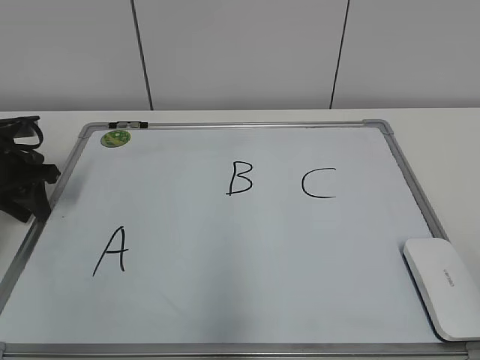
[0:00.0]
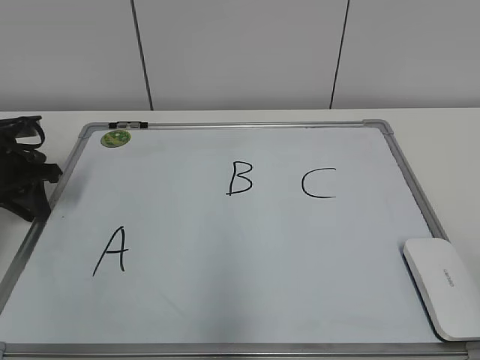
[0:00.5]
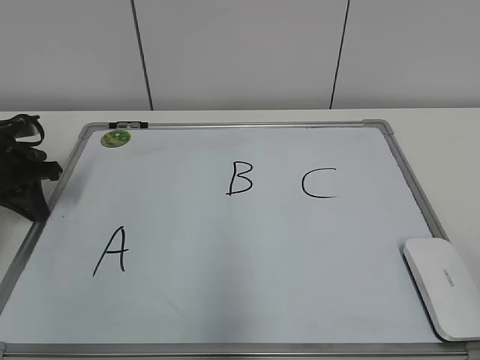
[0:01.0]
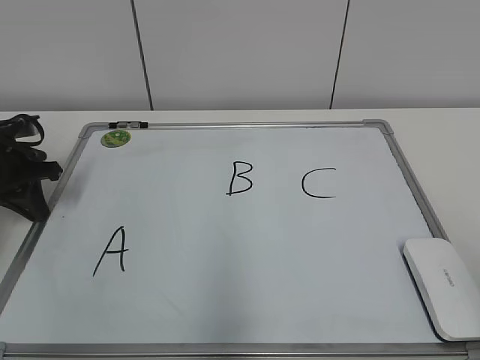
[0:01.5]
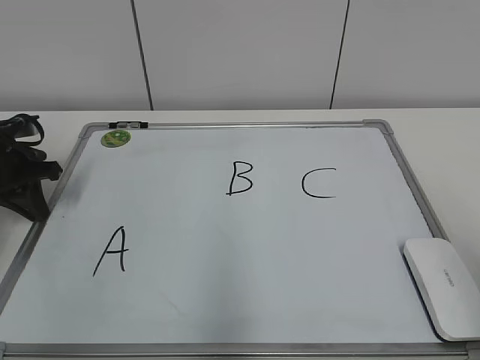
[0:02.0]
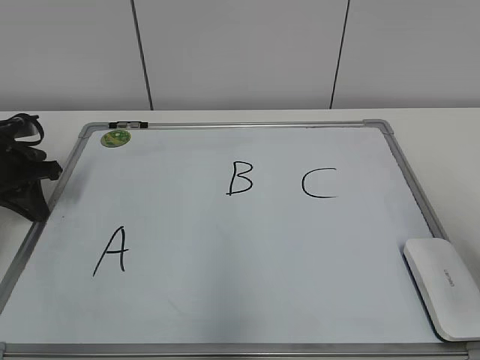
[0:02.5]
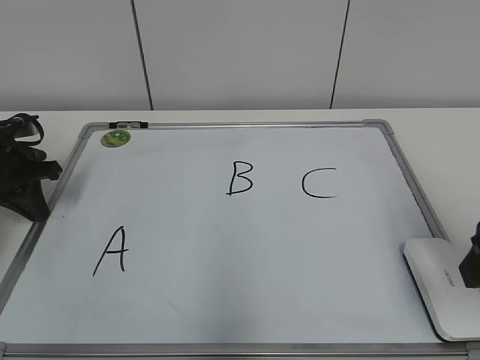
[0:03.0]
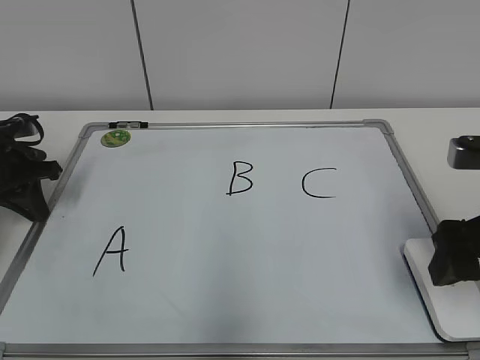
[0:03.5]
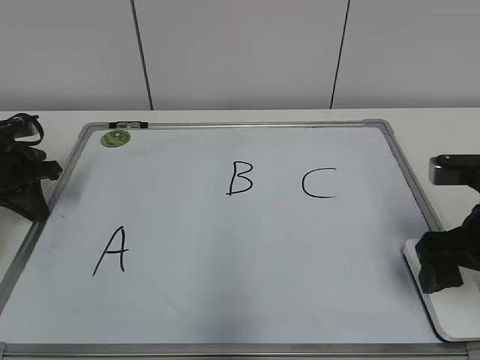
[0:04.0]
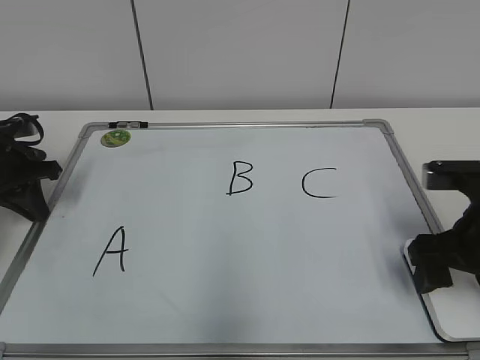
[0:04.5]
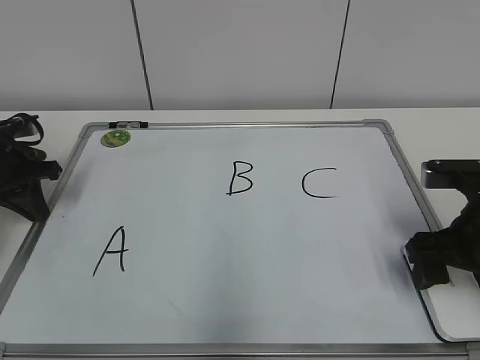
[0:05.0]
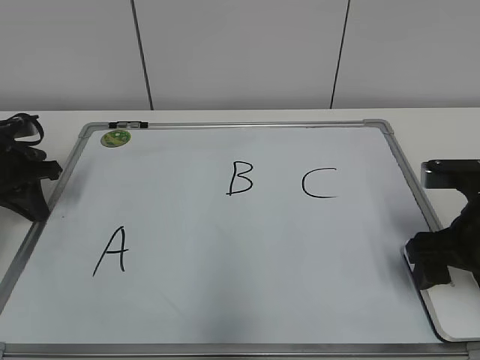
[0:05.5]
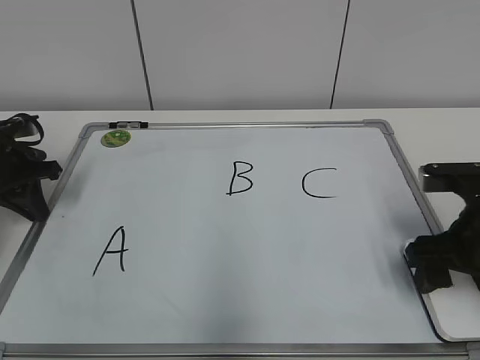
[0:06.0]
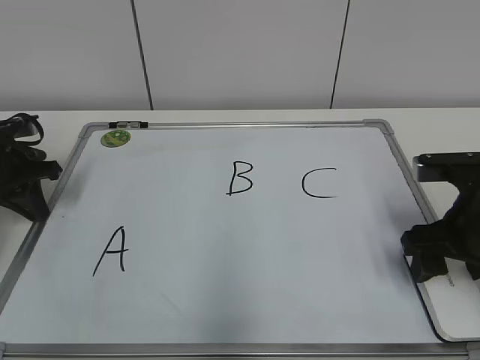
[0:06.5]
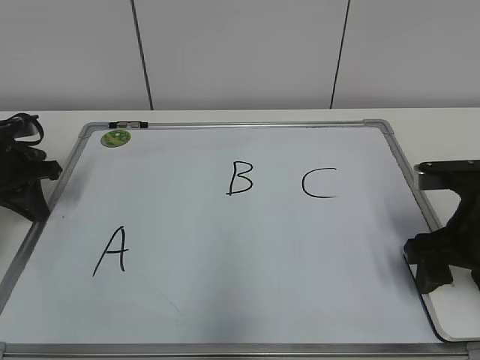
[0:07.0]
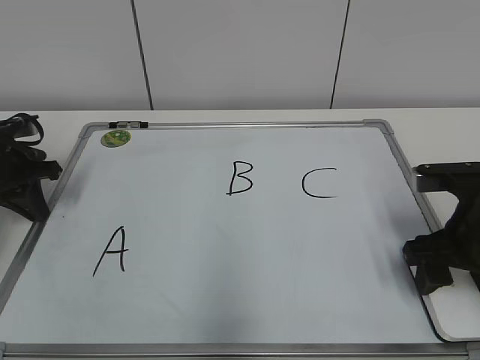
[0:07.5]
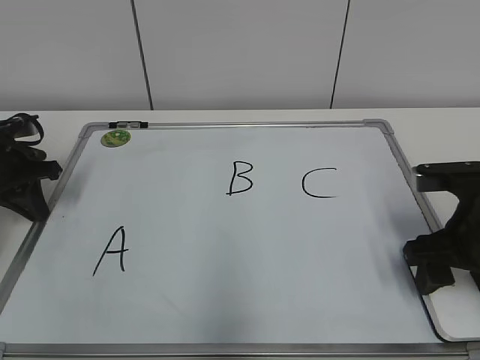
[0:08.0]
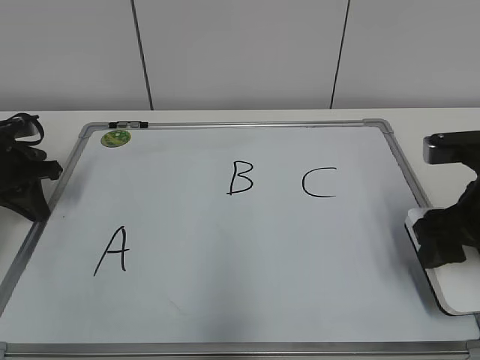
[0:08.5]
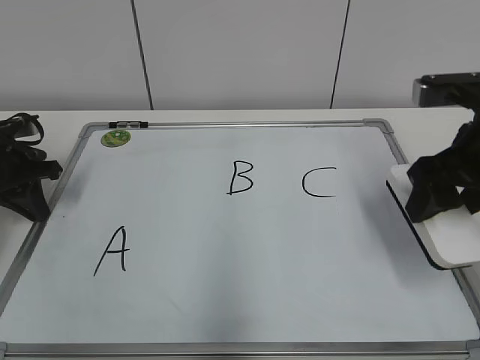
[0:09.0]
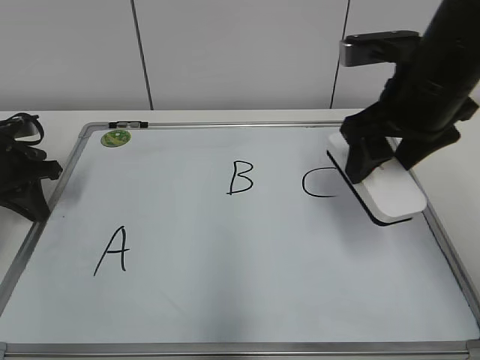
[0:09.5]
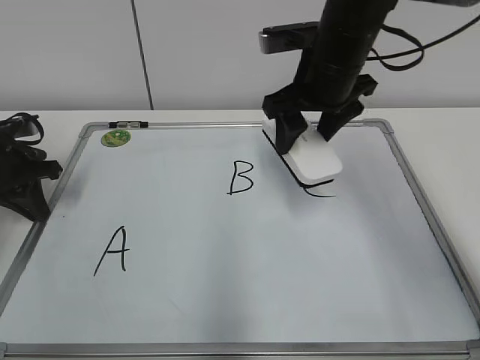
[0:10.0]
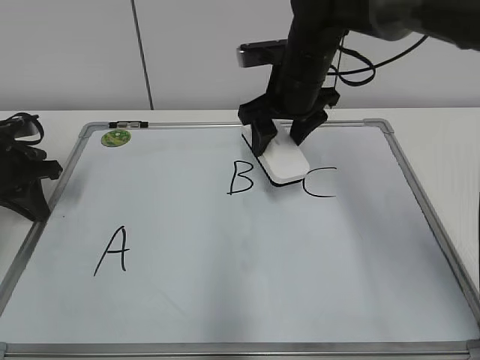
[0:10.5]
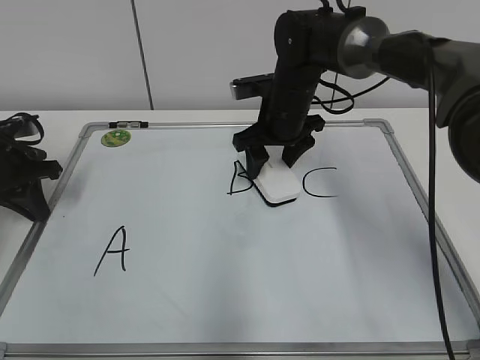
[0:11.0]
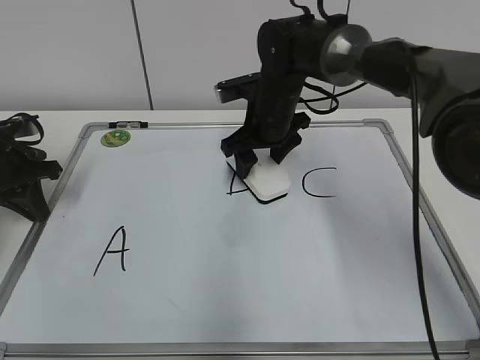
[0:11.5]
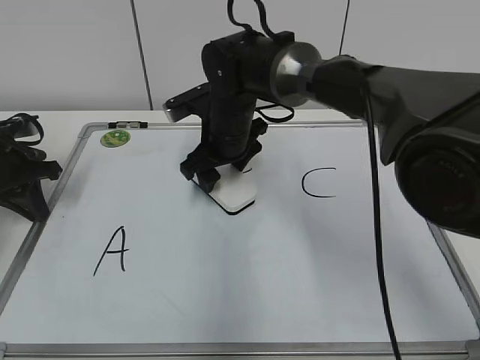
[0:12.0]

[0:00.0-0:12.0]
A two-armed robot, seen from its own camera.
Task of the whole recording: pick up the eraser on the blackboard and erase the letter "B".
Step, 0:01.5 to 0:07.5: Grab the eraser with your right hand.
0:02.0 to 0:04.0: The right gripper travels forward and downward by roughly 20 cm, and opens up.
0:04.0 to 0:06.0: The right gripper closes.
0:06.0 to 0:08.0: The right gripper closes.
0:08.0 to 0:10.0: The right gripper shifts about 20 cm to the left, forward and upward.
0:10.0 to 0:12.0: The right gripper travels to the left and downward by some 15 cm.

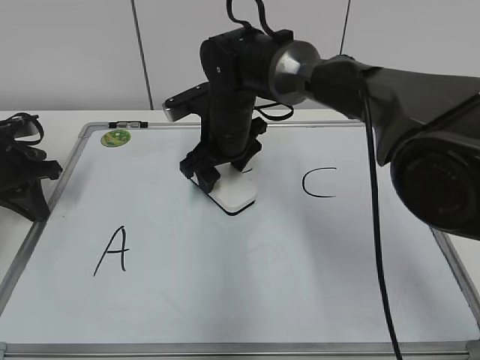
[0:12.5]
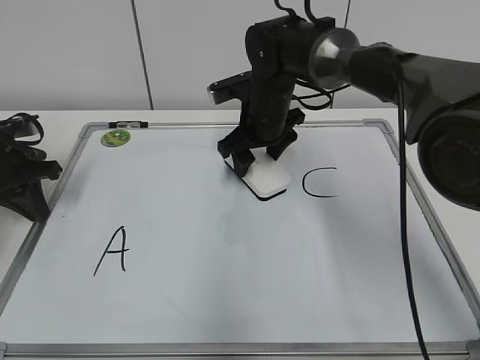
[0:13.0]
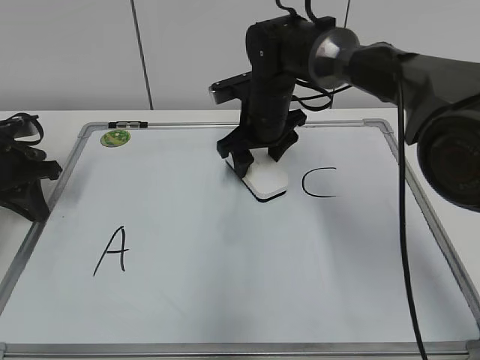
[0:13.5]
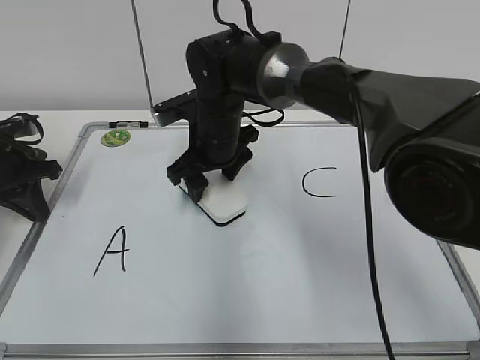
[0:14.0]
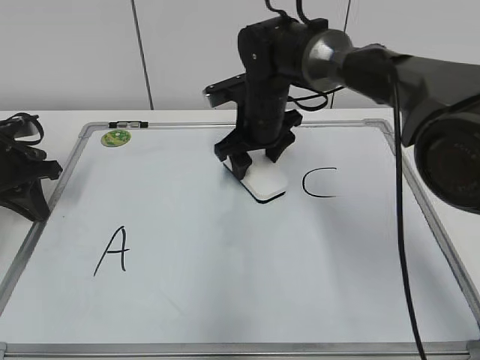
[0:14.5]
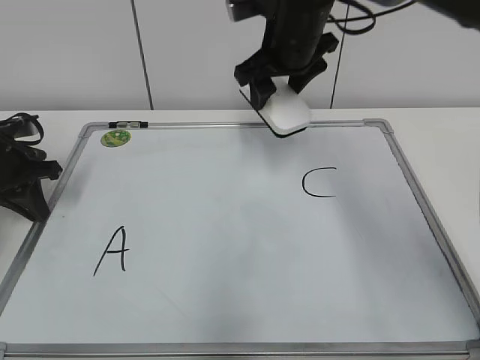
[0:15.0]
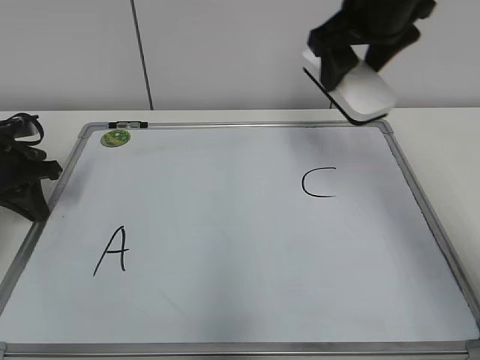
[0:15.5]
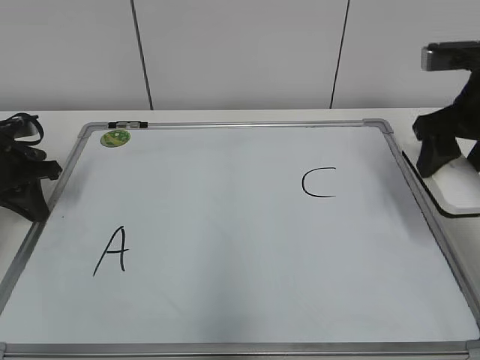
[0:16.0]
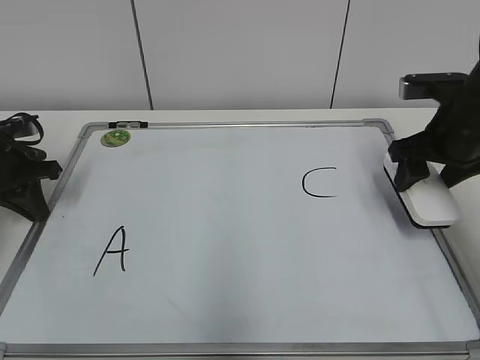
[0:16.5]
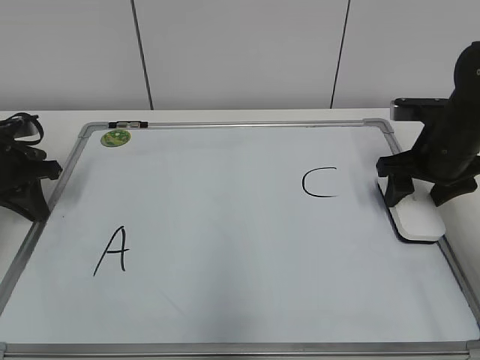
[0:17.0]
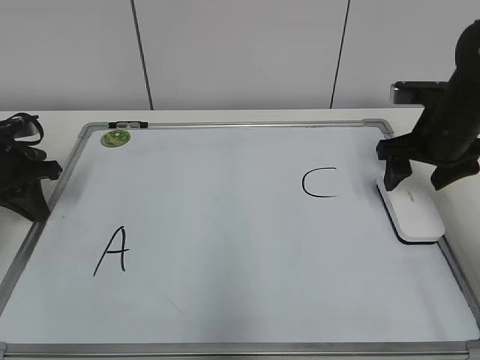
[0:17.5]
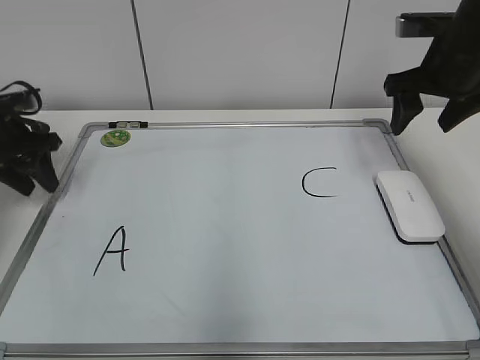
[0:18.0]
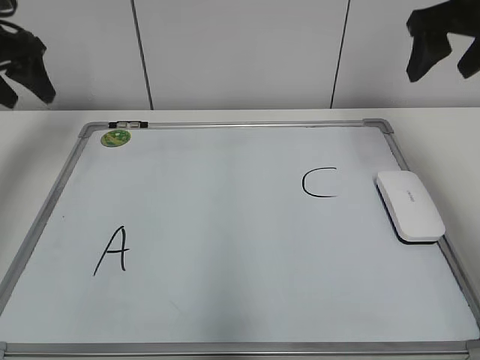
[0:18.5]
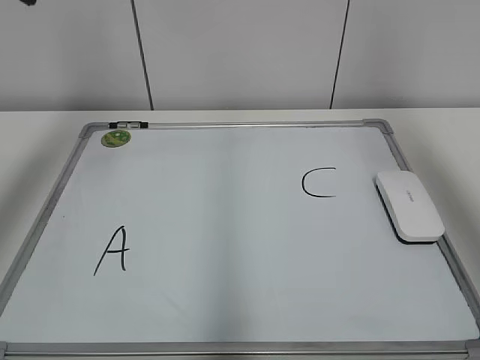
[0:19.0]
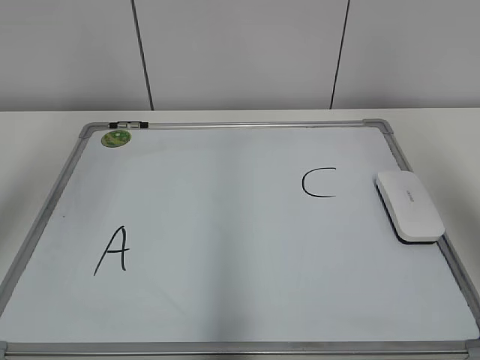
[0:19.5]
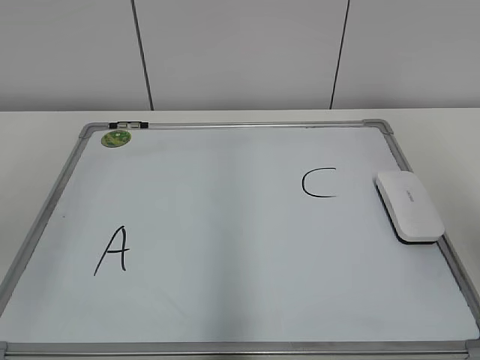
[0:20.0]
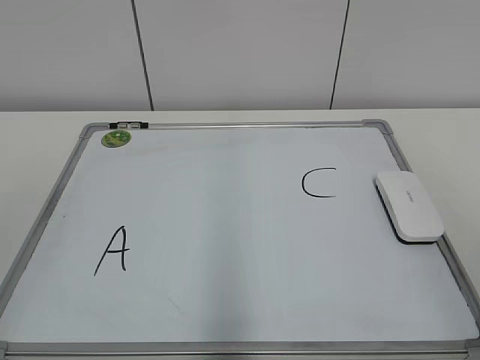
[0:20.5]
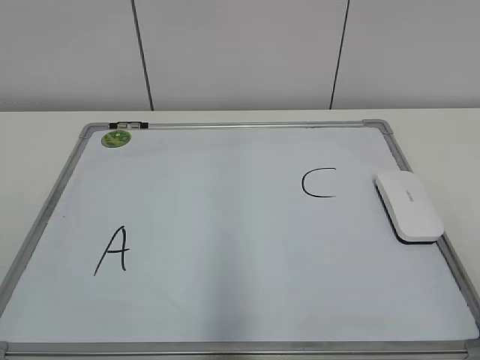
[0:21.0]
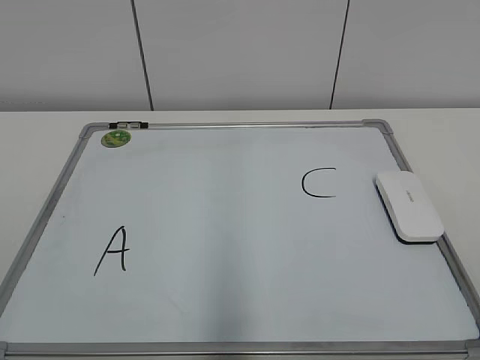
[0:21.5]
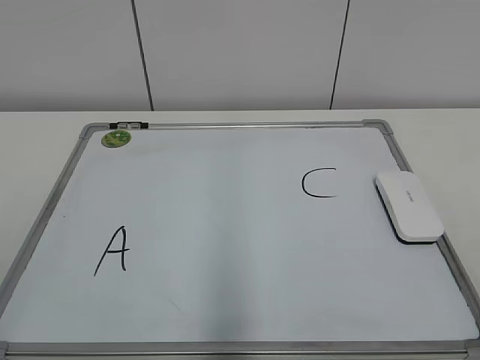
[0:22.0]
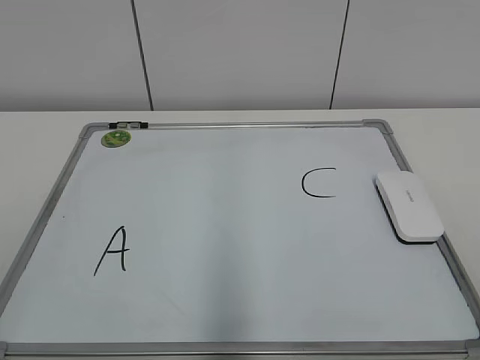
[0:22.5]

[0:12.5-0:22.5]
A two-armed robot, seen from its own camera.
Task of the whole recording: pick up the eraser on the blackboard and erase the letter "B".
Step, 0:15.0 to 0:17.0: Put down the eraser with your right hand.
0:12.5 to 0:14.5: The right gripper goes left and right, about 5 cm each way, reversing 2 times.
0:14.5 to 0:16.5: The right gripper travels to the right and backward by approximately 25 cm.
0:16.5 to 0:18.5: The two grippers go some 15 cm upward. The right gripper opens up; the left gripper opens up.
0:18.5 to 0:20.5: Both grippers move backward, about 35 cm.

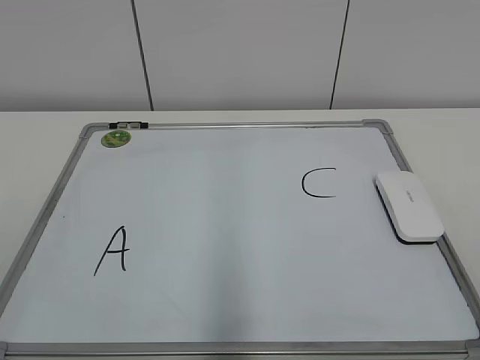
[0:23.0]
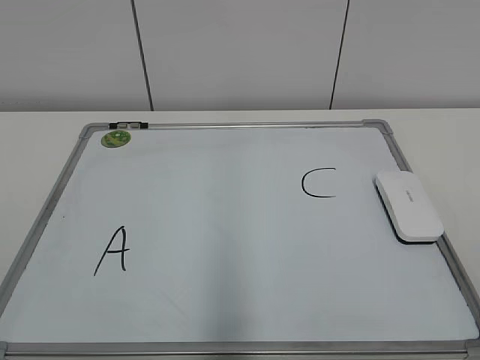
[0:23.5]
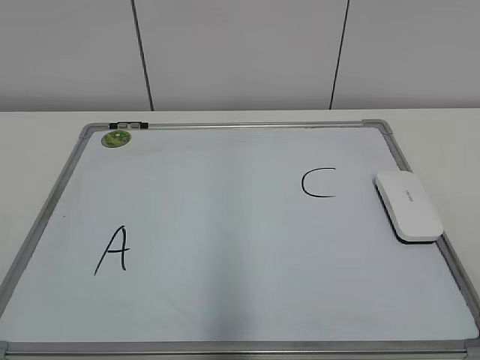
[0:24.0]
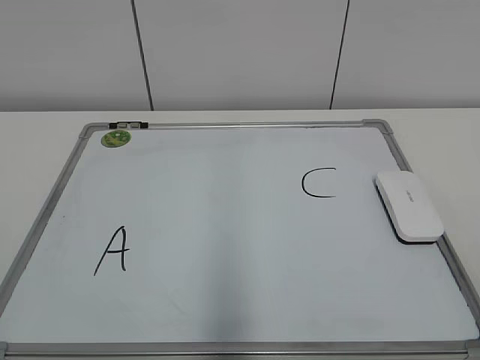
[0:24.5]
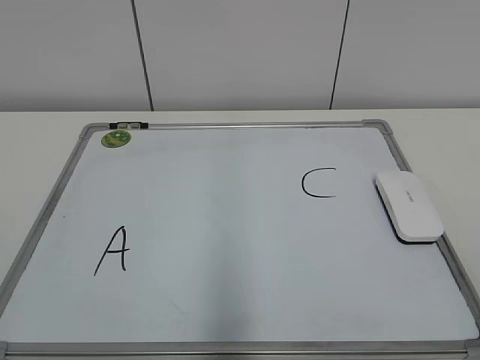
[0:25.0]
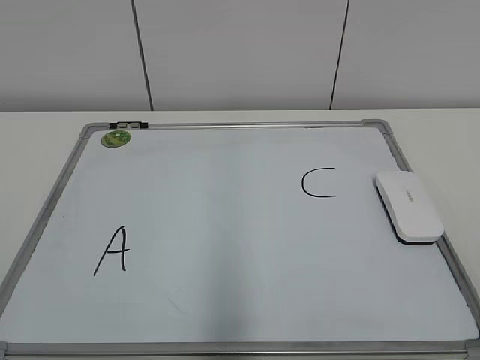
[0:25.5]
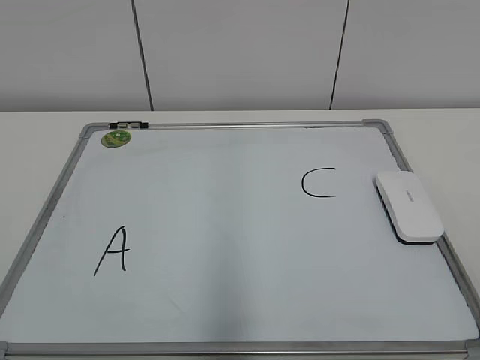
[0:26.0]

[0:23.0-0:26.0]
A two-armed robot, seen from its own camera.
Task of the whole recording: pick up the eraser on the blackboard and erase the letter "B".
0:24.5 to 0:26.0: Both grippers stay put.
